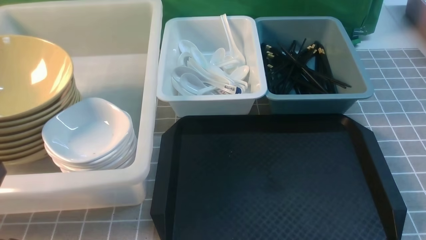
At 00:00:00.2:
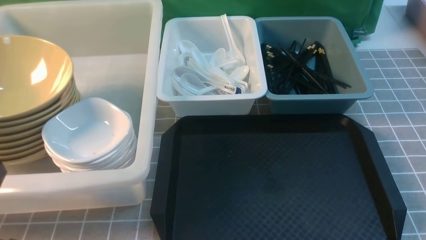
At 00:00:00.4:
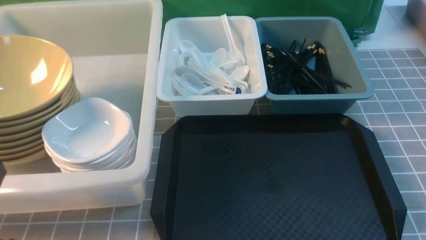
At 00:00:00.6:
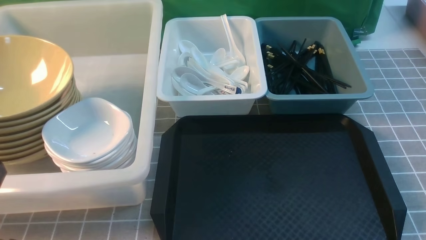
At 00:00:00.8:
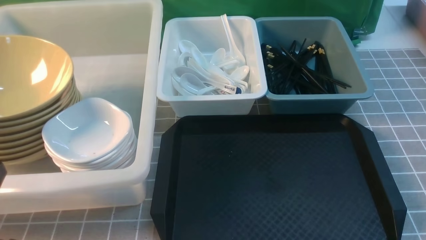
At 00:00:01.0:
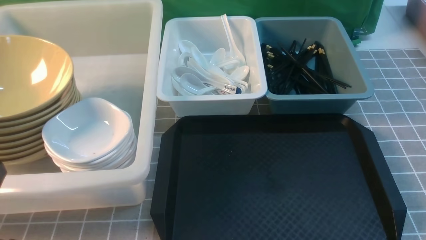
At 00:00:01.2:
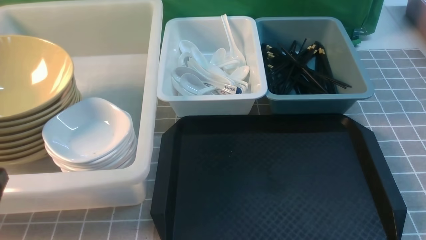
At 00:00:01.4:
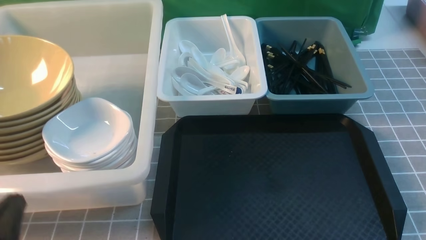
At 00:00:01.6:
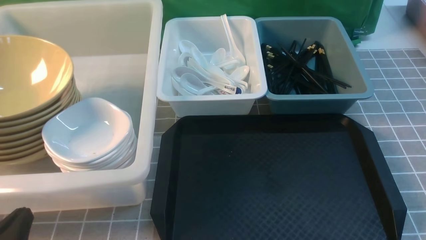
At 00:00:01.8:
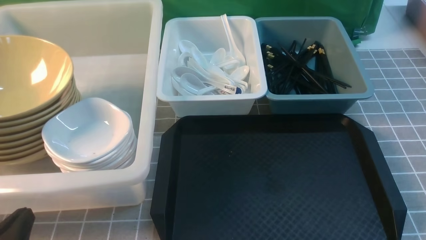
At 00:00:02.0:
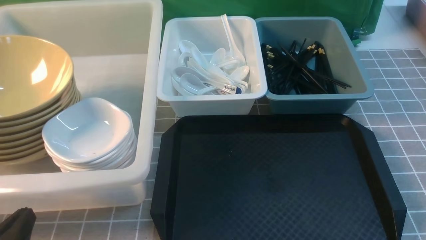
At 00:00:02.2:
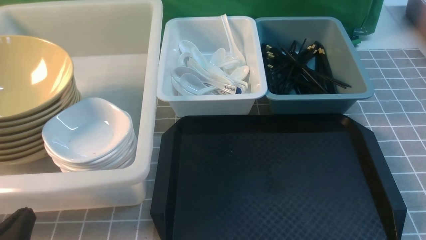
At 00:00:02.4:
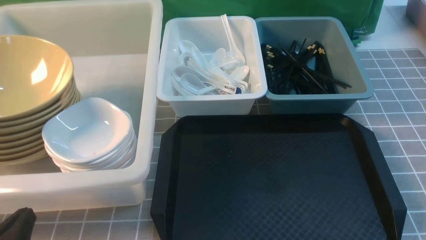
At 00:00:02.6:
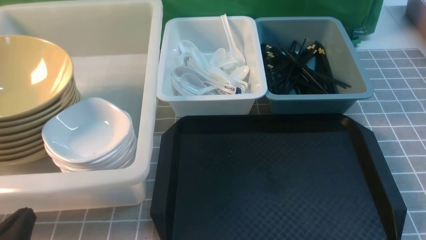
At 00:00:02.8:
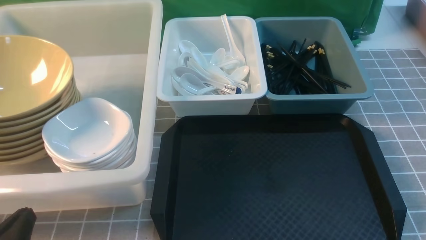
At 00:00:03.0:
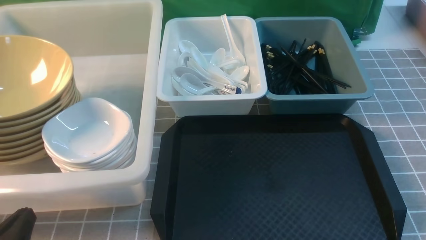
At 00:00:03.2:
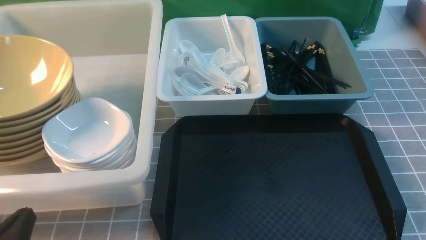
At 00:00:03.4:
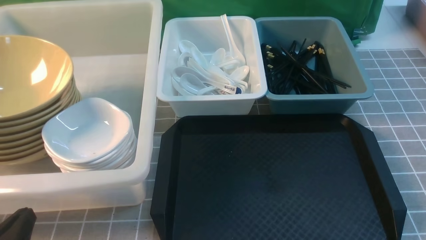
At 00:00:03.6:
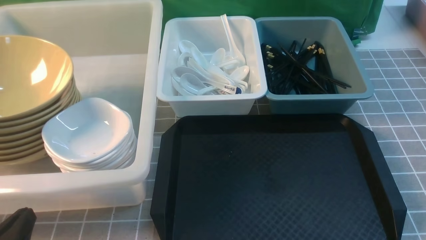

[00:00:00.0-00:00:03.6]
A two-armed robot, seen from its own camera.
Task of the whole recording: on grey table put chopsticks spoon bowls plates into blue grey white boxes.
00:00:00.0 to 00:00:01.8: The left gripper moves downward, approximately 10 cm.
00:00:01.8 to 00:00:03.6: Both grippers stay put.
